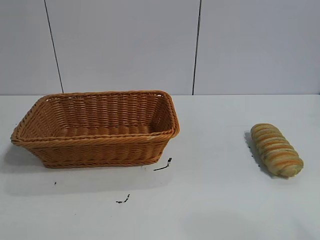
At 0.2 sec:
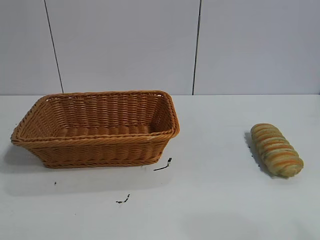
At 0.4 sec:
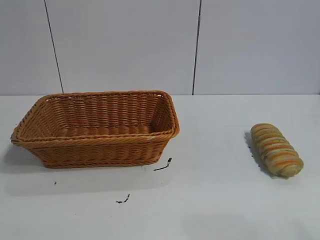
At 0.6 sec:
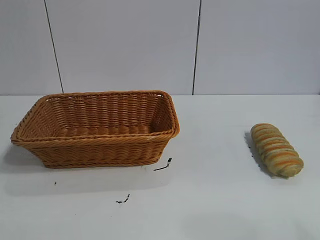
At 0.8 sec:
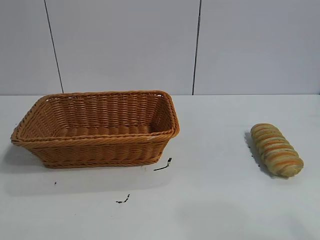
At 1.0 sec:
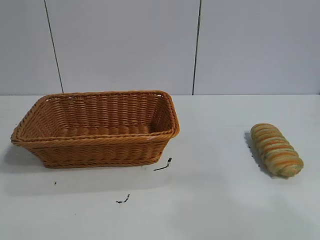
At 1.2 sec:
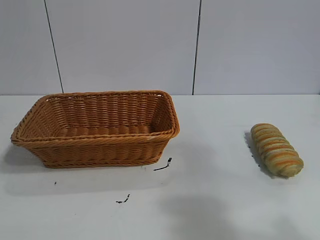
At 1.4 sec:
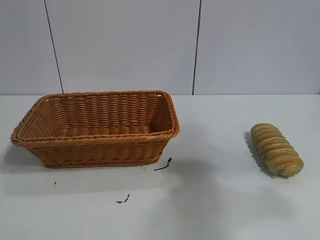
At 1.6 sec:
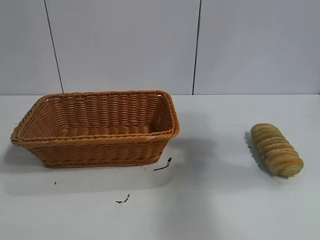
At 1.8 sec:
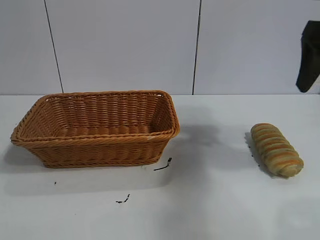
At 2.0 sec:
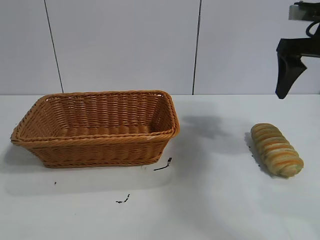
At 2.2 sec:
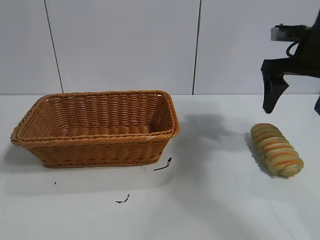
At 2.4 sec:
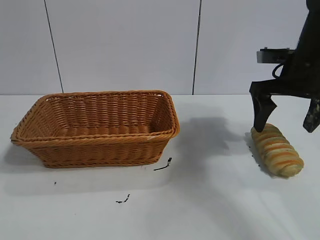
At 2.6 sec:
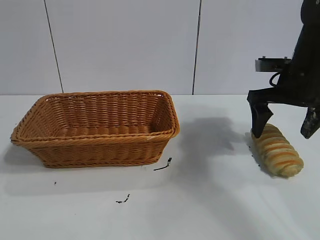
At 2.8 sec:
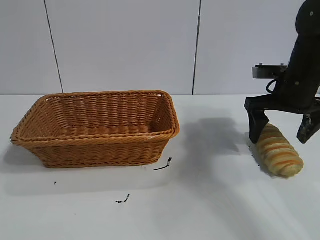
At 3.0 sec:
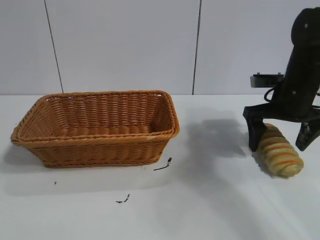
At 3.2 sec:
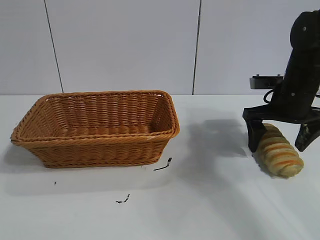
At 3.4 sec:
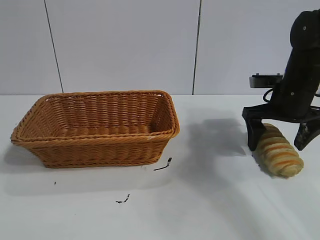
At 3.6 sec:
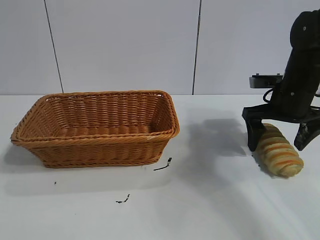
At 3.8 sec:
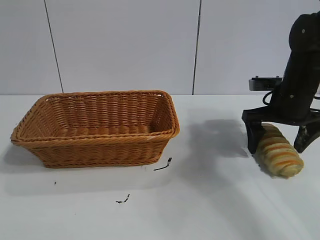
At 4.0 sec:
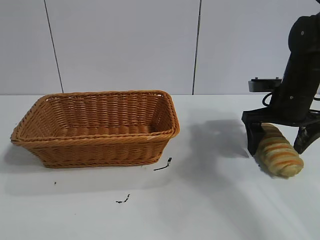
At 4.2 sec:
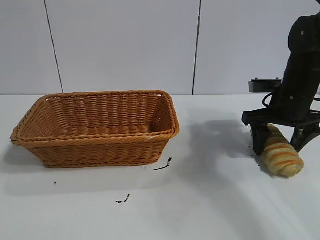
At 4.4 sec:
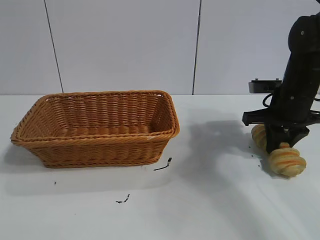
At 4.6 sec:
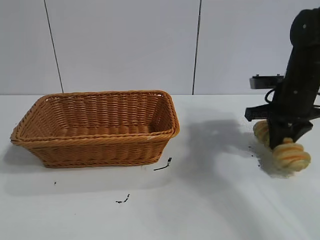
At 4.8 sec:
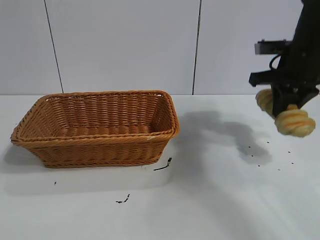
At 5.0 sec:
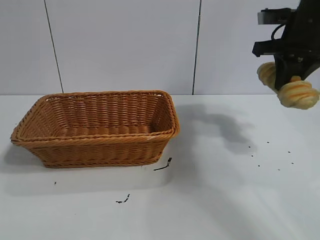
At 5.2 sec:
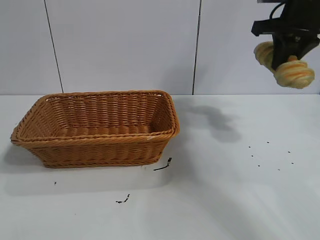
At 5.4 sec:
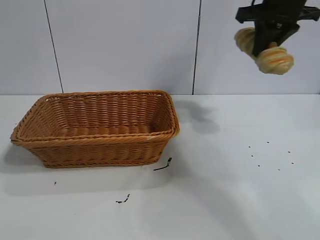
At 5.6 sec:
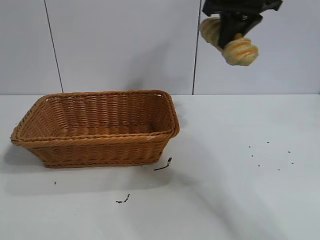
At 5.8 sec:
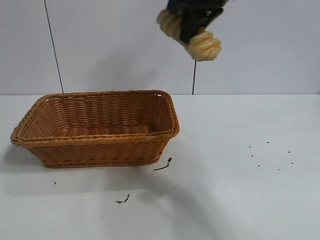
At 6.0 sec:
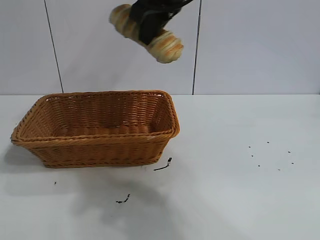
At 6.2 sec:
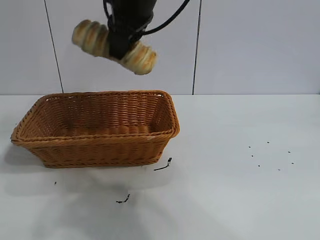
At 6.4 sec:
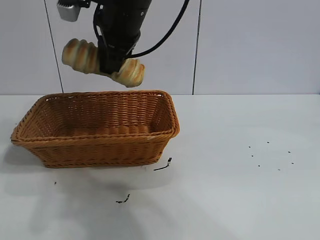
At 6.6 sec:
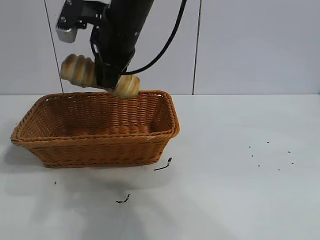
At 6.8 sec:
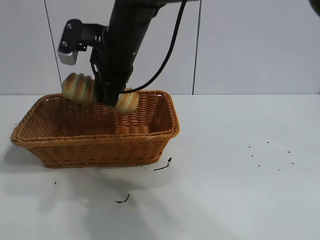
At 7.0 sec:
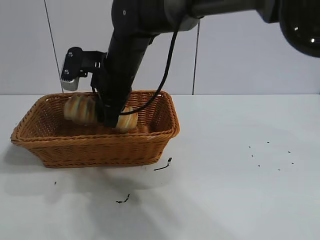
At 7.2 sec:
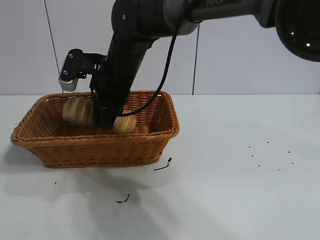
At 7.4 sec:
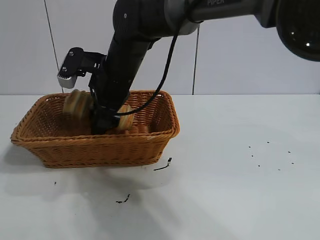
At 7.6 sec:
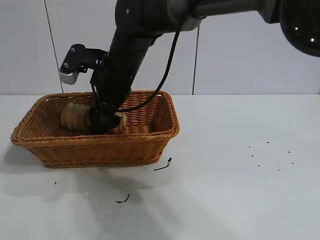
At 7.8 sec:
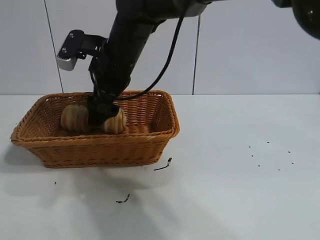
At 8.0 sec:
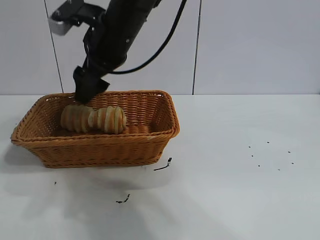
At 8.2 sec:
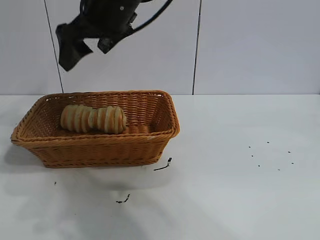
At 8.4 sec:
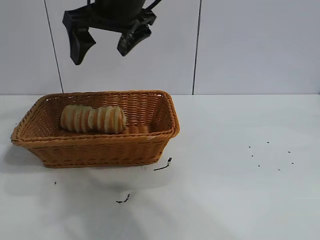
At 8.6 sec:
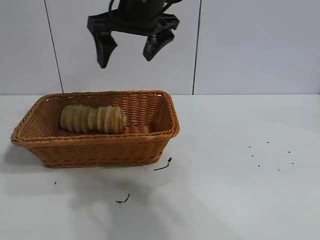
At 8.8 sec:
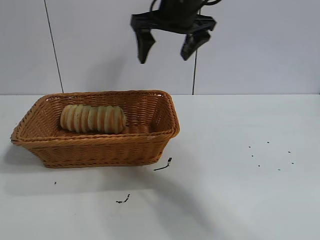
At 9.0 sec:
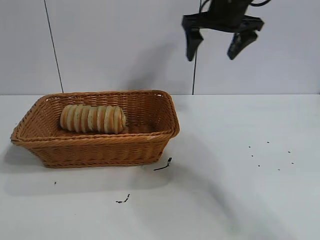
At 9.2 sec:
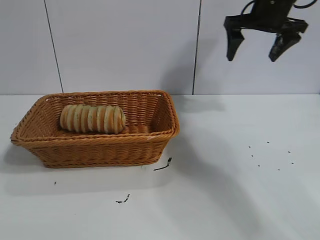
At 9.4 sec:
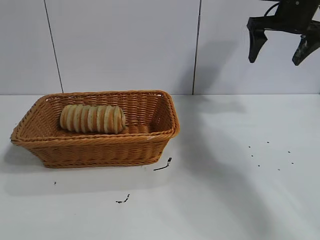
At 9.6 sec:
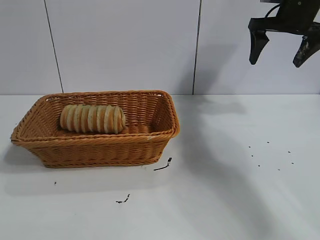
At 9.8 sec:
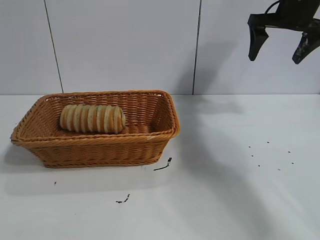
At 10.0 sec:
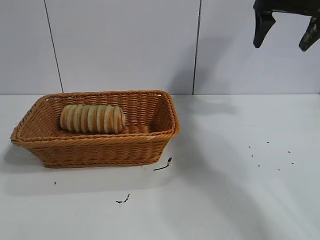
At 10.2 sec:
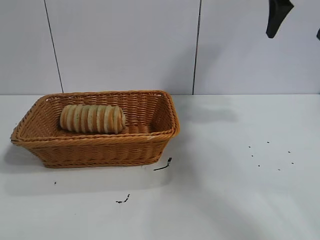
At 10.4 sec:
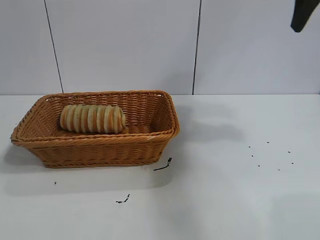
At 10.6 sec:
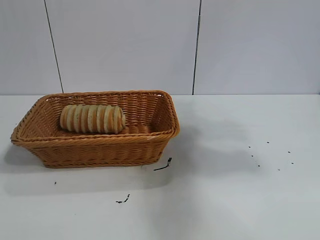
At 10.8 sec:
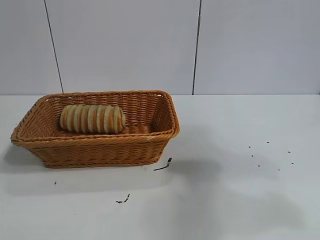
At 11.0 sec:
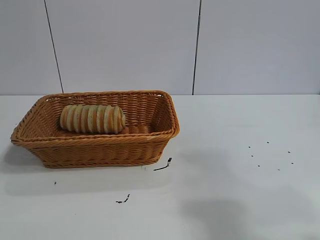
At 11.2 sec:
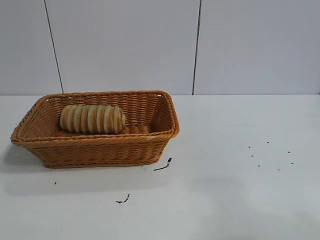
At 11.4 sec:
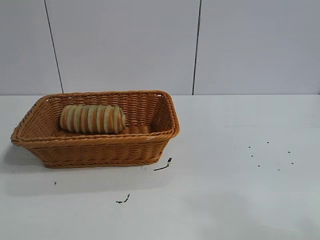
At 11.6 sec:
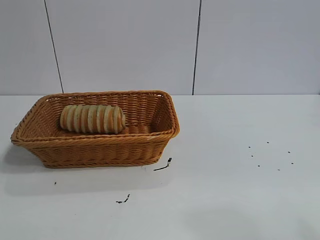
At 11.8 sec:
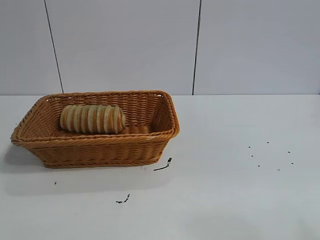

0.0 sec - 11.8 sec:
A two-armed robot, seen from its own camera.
Task of the whole recording: pick up the long bread and put it into the basket.
Step, 1.8 sec - 4.4 sec: Grasp the long bread with right gripper.
Step, 4.8 sec - 8.0 sec: Place the long bread in the basket with right gripper.
